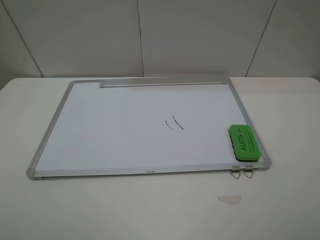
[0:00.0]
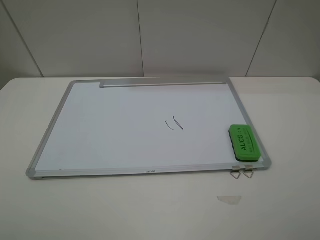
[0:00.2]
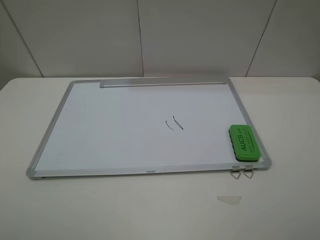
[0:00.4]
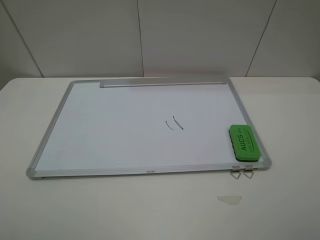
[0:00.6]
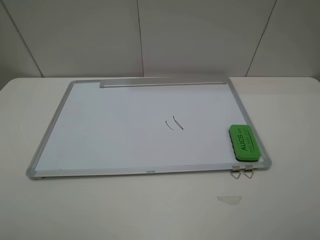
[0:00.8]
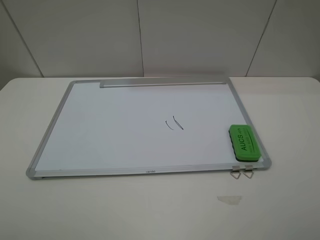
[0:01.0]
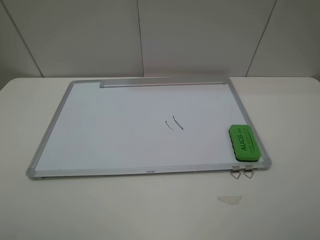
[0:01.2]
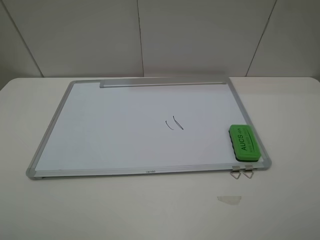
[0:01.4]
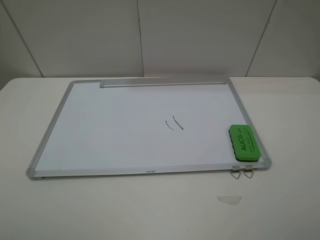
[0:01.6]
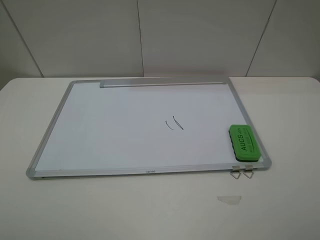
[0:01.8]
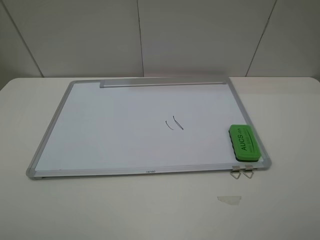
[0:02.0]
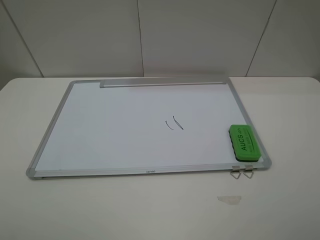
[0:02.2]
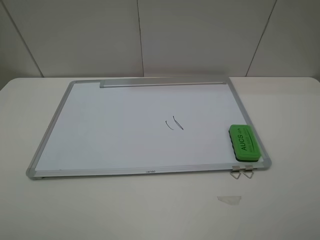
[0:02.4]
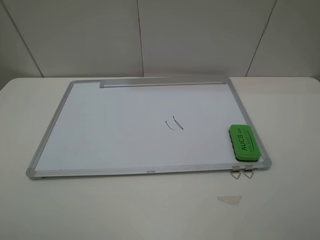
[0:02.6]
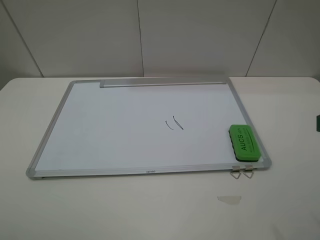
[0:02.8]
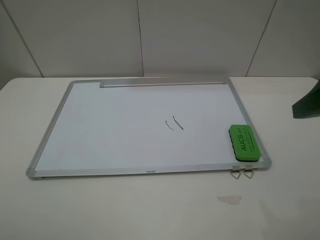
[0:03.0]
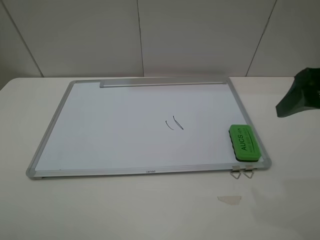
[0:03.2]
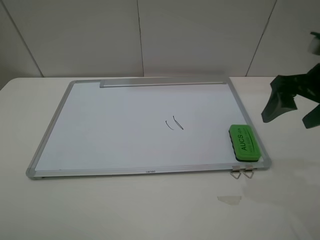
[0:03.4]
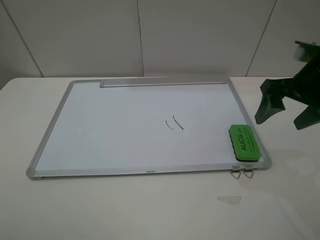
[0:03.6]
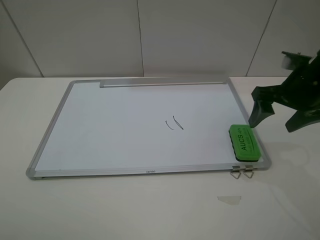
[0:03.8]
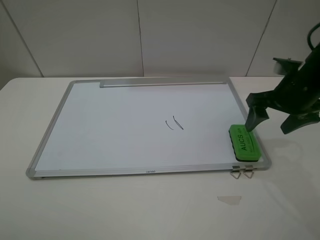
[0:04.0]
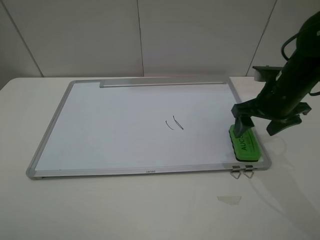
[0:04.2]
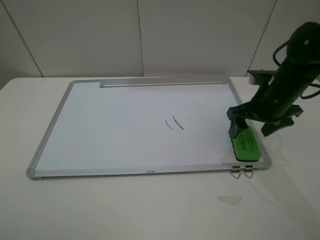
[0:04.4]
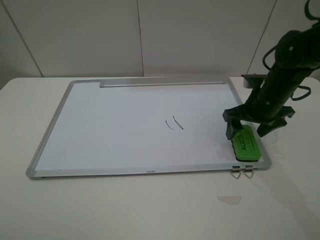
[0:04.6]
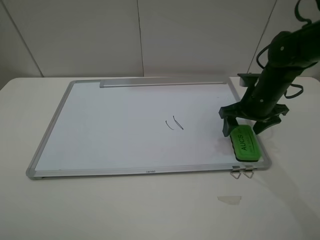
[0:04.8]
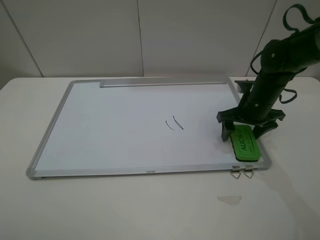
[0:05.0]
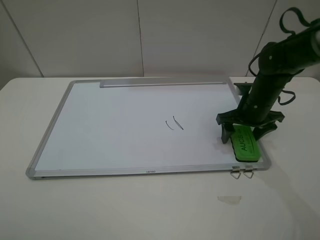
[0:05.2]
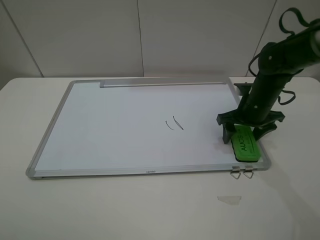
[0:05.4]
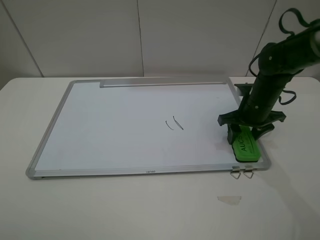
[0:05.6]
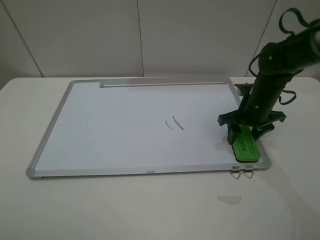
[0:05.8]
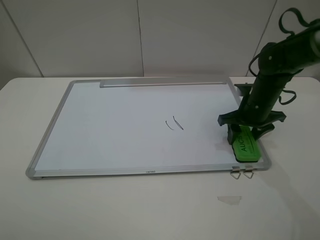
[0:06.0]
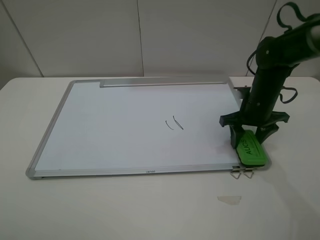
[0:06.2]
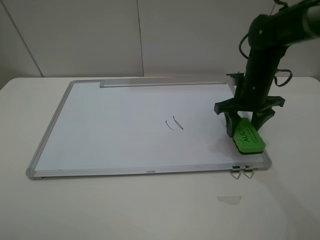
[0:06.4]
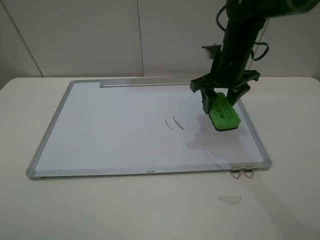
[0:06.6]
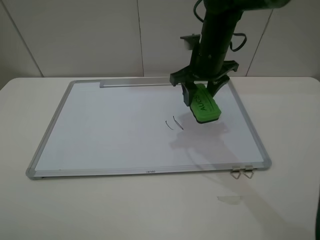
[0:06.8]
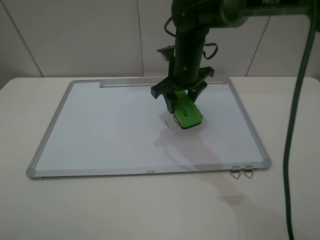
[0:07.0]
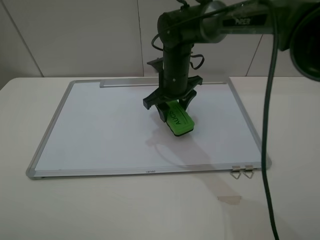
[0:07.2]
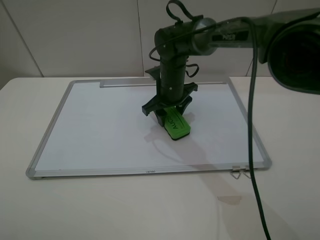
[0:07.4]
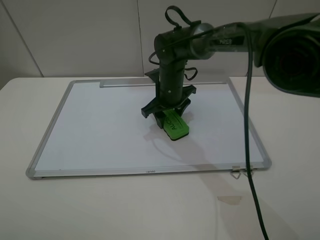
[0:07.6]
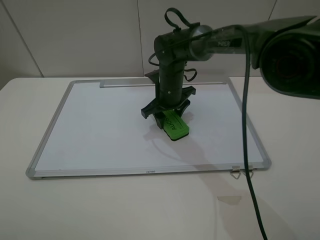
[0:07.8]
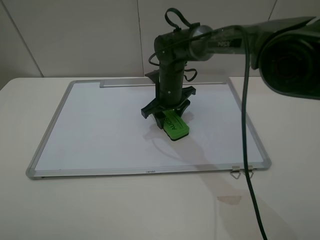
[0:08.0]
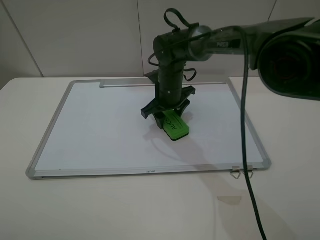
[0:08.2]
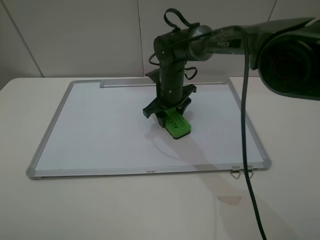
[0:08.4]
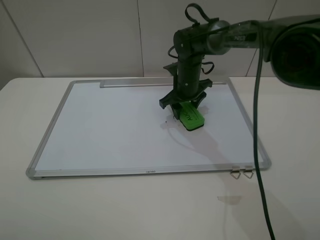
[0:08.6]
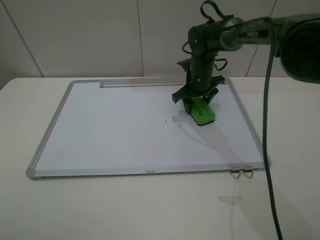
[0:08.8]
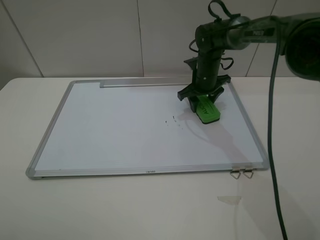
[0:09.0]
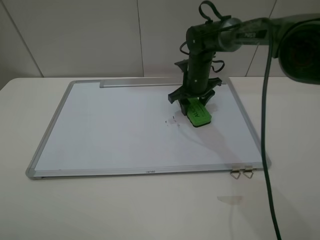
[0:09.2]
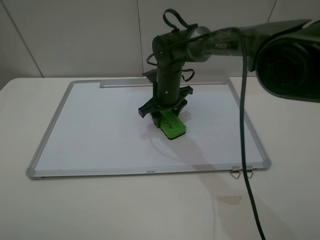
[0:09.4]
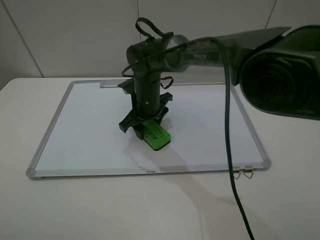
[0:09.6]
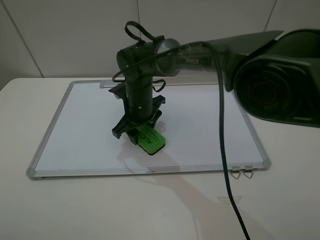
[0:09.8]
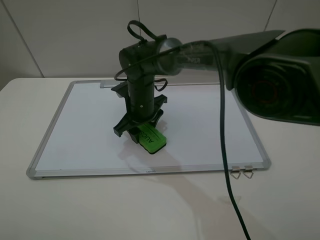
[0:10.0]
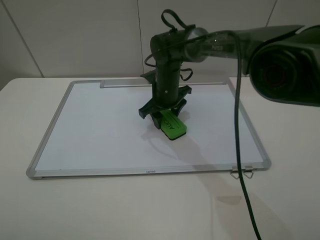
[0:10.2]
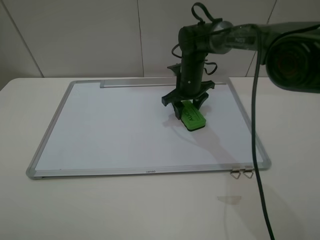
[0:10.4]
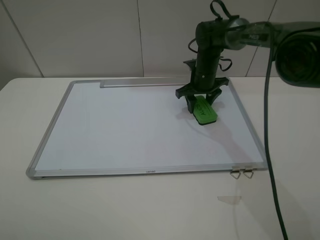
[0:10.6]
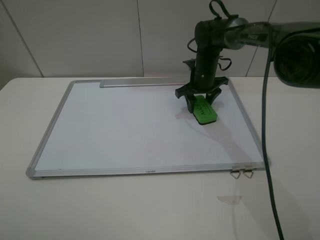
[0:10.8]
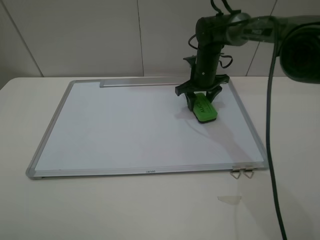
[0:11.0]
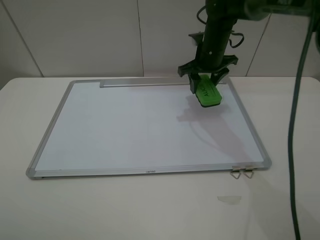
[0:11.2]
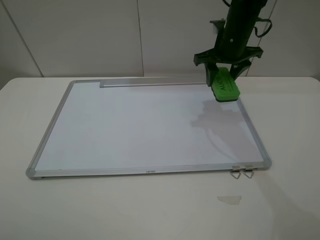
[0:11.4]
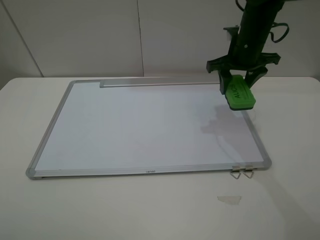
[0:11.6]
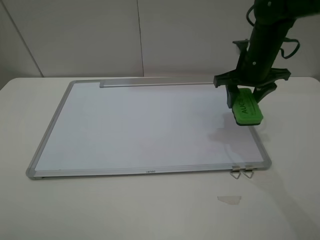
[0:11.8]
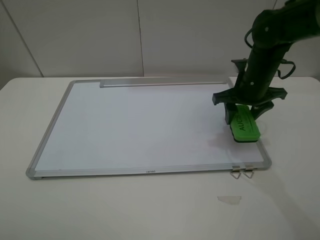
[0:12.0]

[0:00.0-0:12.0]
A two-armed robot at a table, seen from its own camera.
Step, 0:00.0 to 0:06.0: Grasp the eraser with the right gripper.
Step, 0:06.2 to 0:10.8: Grasp the eraser and wipe the blackboard with the right gripper.
0:00.0 to 0:01.6: The two grippers keep their place.
0:01.6 to 0:03.0: The right gripper travels forward by some 15 cm.
0:03.0 to 0:04.4: The right gripper heads downward and forward, covering some 20 cm.
0:04.4 to 0:06.0: The right gripper moves some 5 cm, and closes.
0:06.0 to 0:07.6: The right gripper is displaced to the left by approximately 20 cm.
0:07.6 to 0:09.0: The right gripper is displaced to the right and forward by about 10 cm.
0:09.0 to 0:10.4: The right gripper reaches about 15 cm to the left, then returns.
0:10.4 to 0:12.0: The right gripper travels backward, to the right and upward by roughly 15 cm.

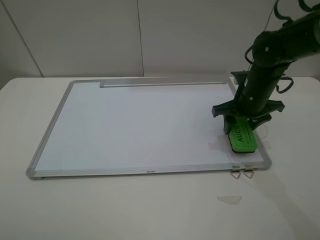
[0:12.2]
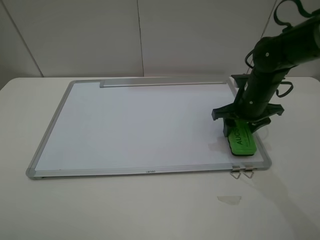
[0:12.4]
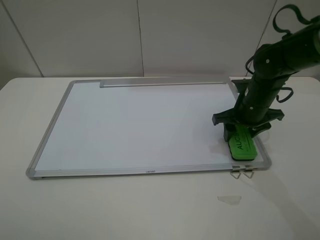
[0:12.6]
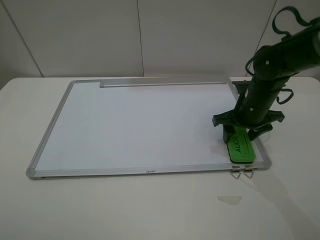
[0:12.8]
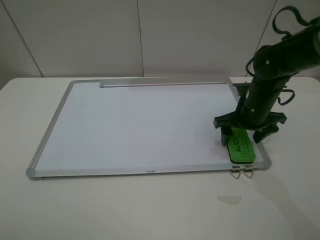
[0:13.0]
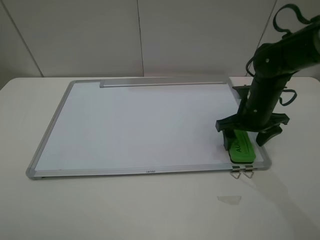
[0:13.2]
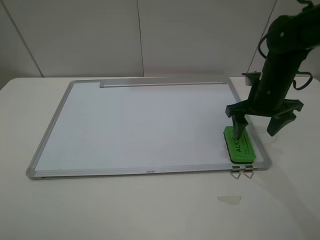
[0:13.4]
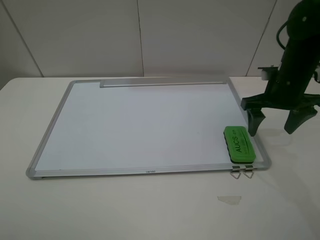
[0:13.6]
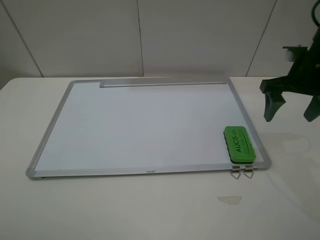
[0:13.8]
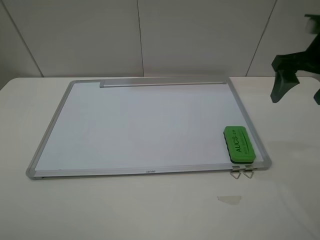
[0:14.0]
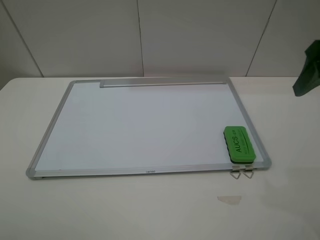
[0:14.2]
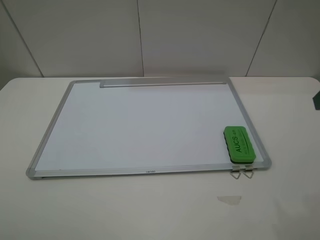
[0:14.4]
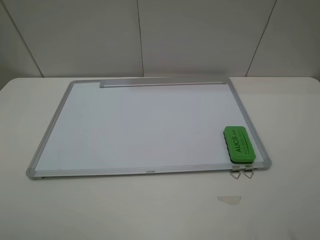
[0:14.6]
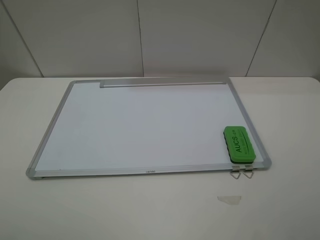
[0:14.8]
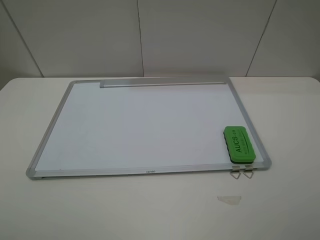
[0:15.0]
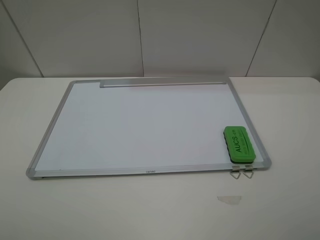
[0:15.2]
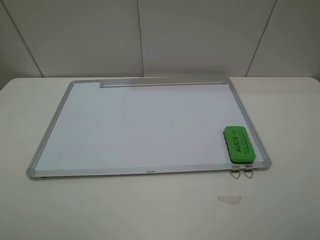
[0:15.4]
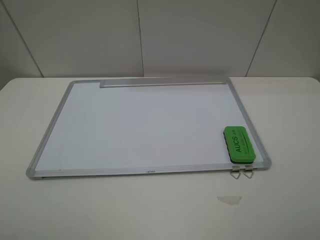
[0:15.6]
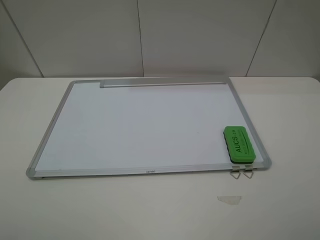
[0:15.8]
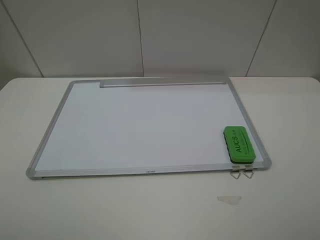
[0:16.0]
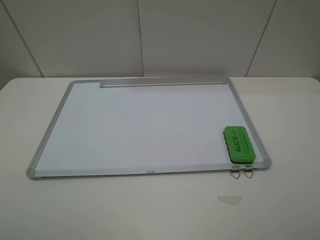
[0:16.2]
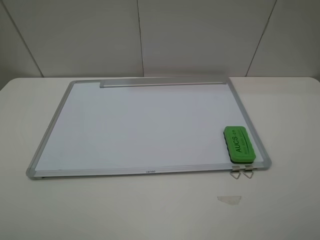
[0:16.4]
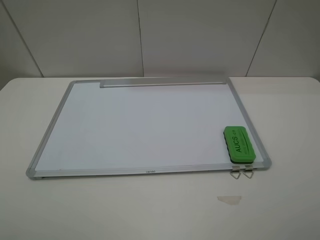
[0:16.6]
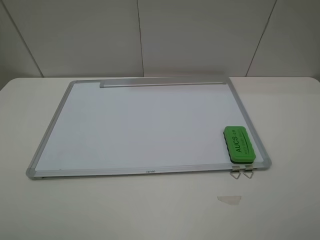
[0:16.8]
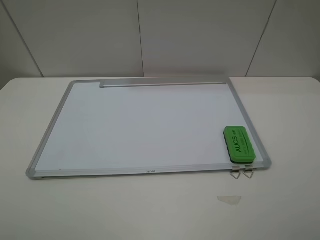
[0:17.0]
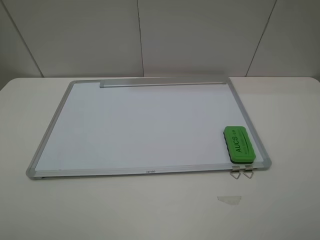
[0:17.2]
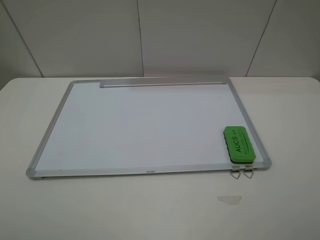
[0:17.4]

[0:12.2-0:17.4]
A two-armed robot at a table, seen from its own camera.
0:12.2 to 0:14.0: The right gripper travels upward and to the right by roughly 15 cm, and opens up.
0:14.0 to 0:15.6: The right gripper heads backward, covering roughly 30 cm.
0:15.6 to 0:17.4: Both grippers stay about where they are.
